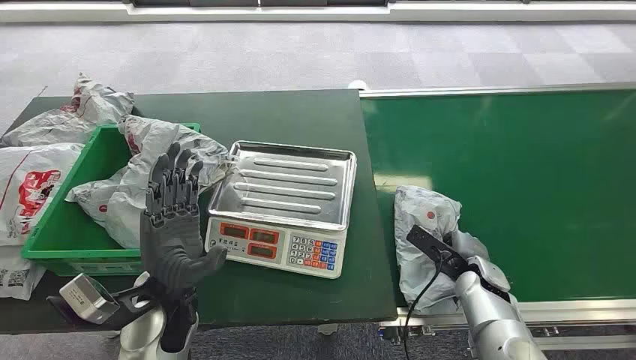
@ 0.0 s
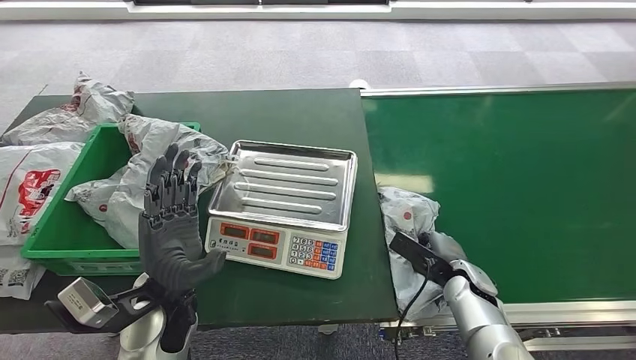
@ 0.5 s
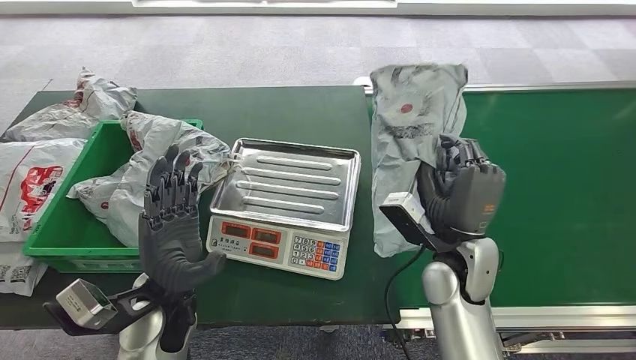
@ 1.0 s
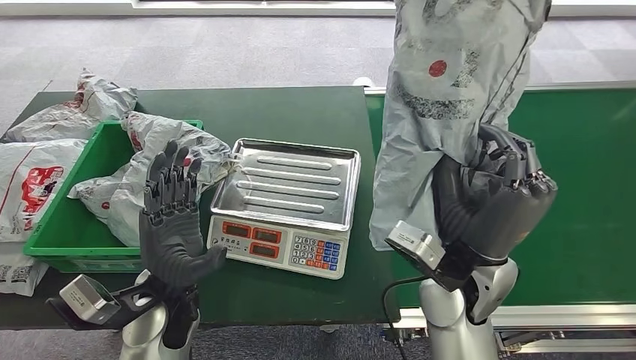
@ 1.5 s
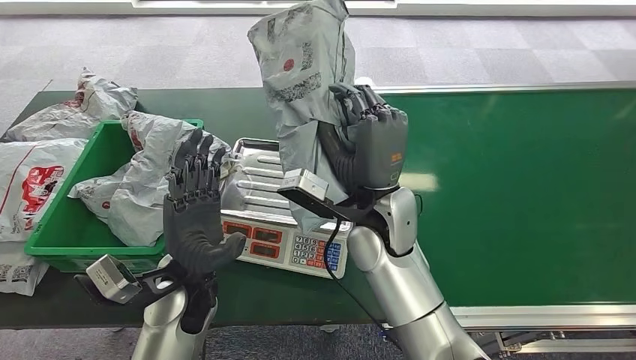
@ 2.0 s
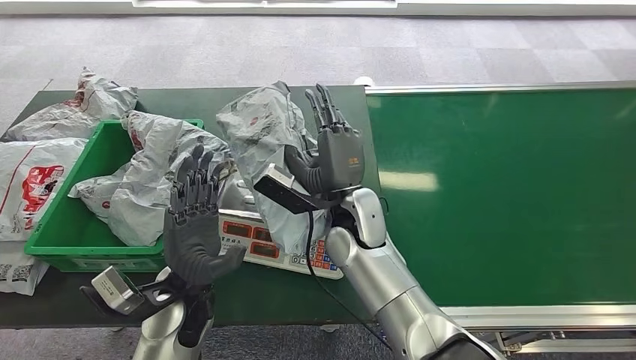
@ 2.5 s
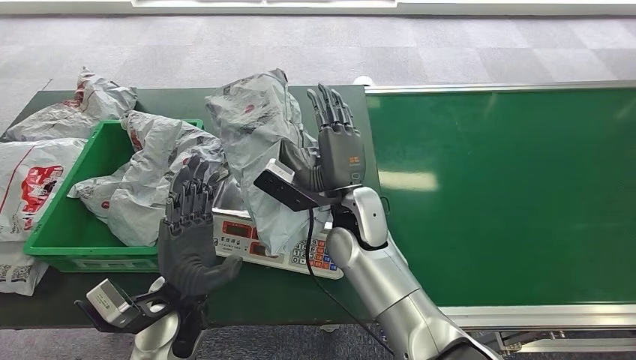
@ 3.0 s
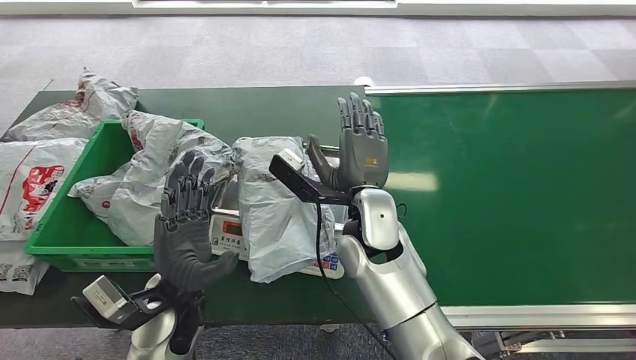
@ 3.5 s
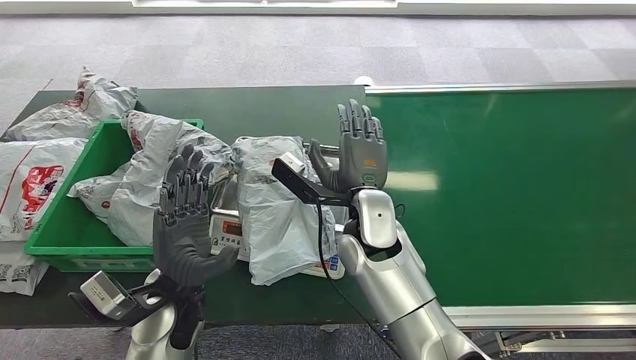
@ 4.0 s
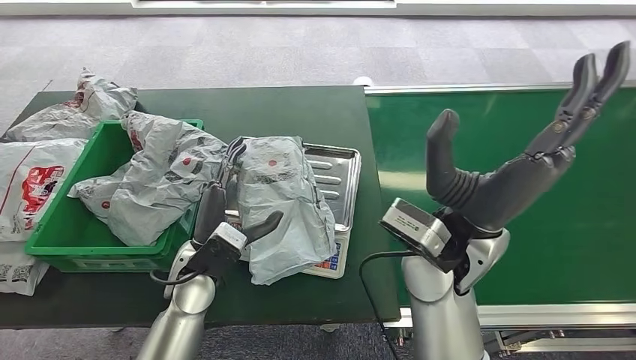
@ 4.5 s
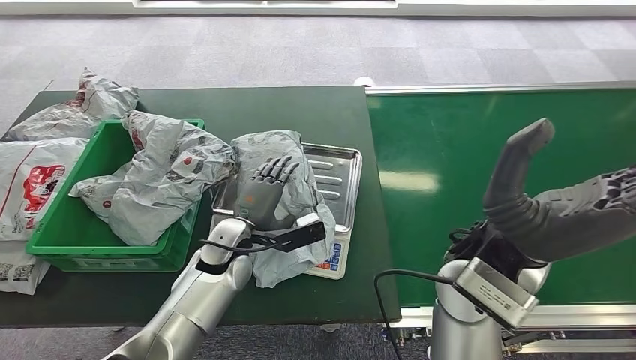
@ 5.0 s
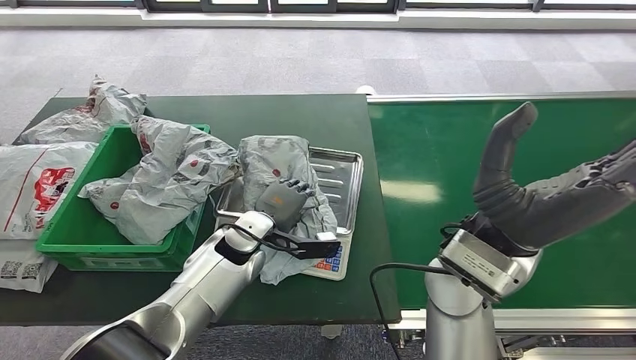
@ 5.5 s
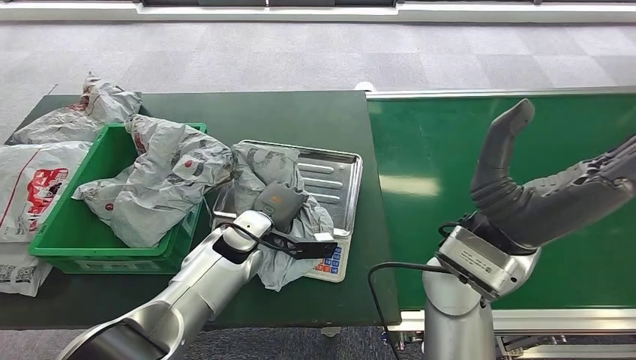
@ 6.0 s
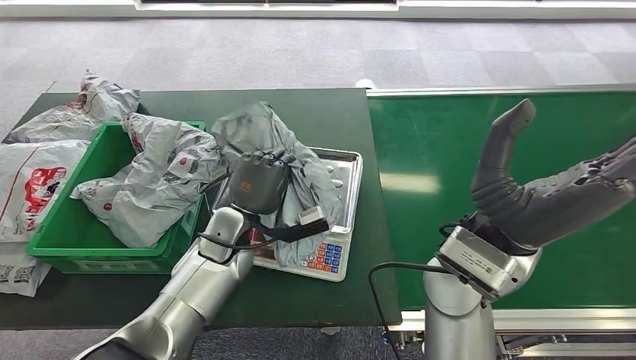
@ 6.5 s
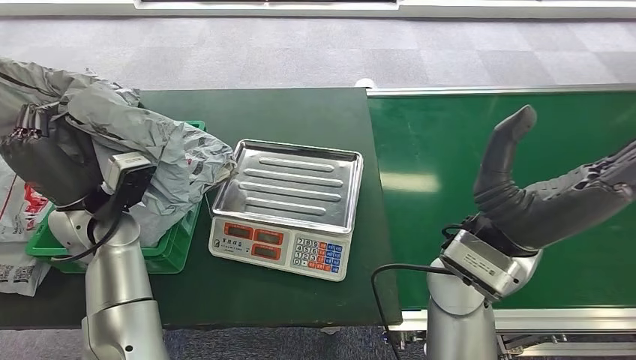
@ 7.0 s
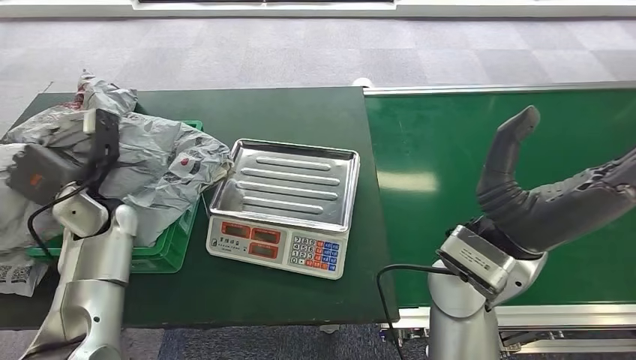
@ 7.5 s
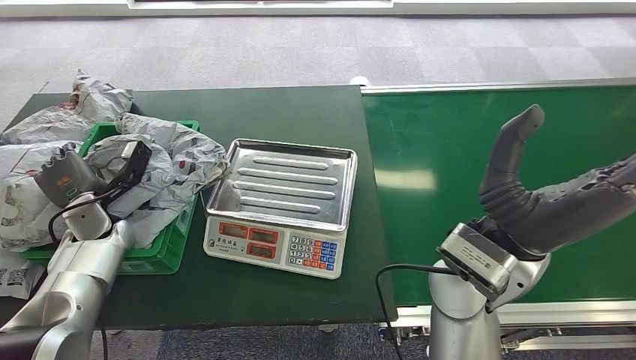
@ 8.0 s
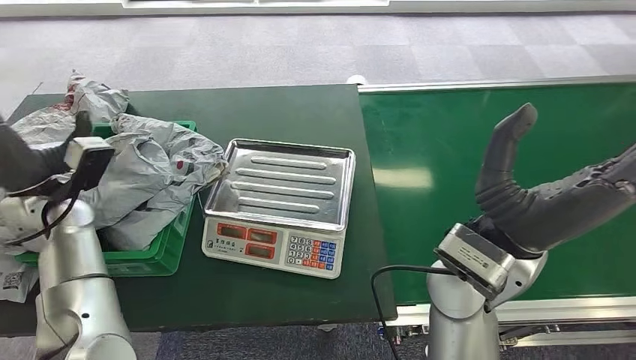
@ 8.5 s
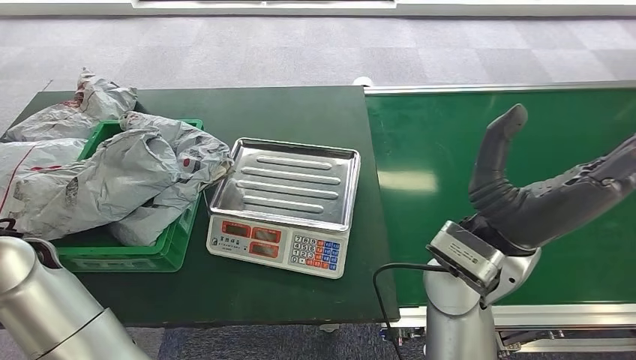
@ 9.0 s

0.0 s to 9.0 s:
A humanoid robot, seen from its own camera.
Step, 0.0 to 2.0 s: Pick up the package from the conveyor belt.
Step, 2.5 to 3.5 s: Place the package onto the inbound machine.
Step, 4.0 to 7.0 s: Pick up the package from the inbound machine.
Step, 7.5 to 9.0 s: Place the package into the parcel locker.

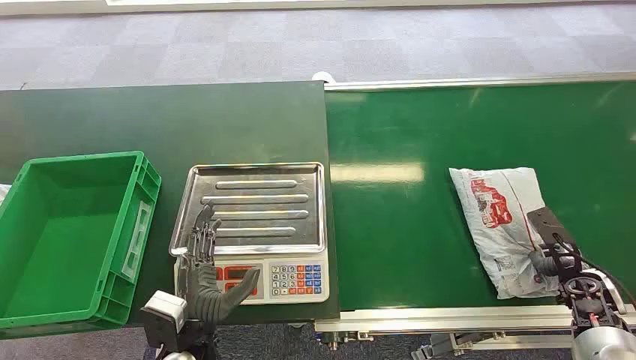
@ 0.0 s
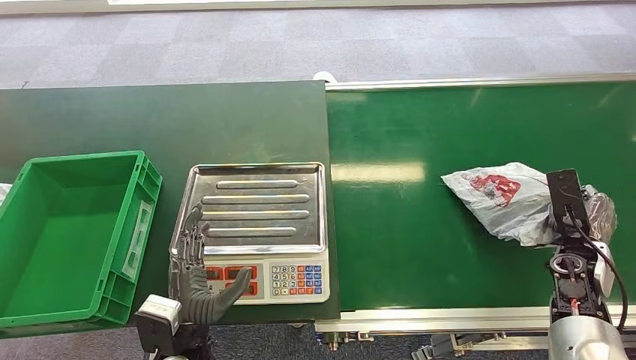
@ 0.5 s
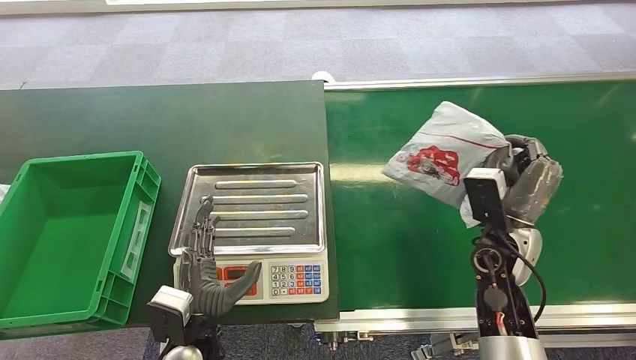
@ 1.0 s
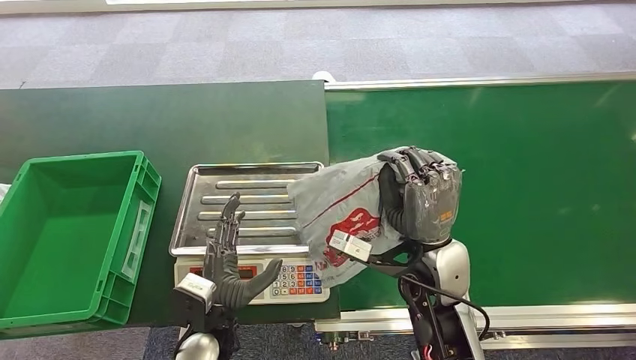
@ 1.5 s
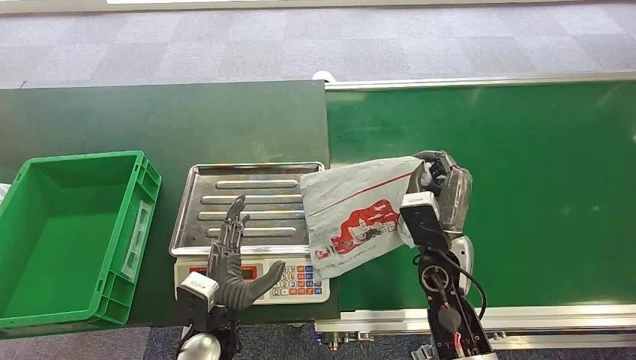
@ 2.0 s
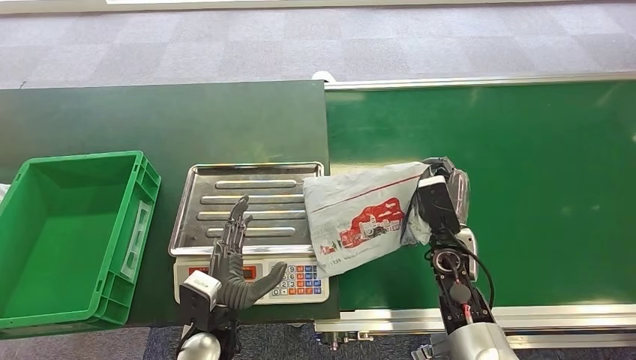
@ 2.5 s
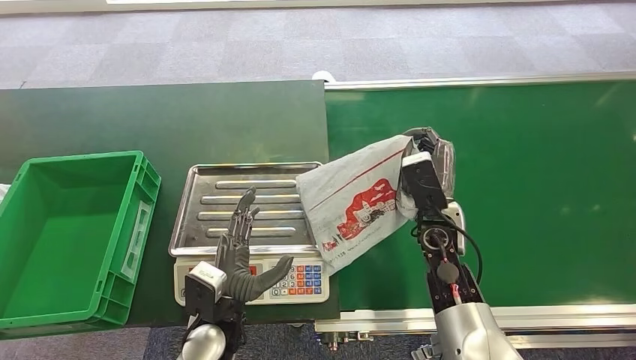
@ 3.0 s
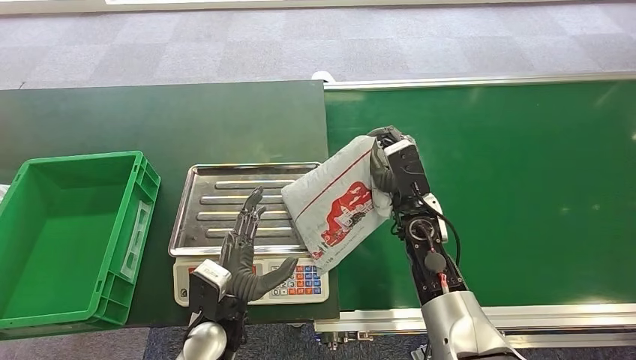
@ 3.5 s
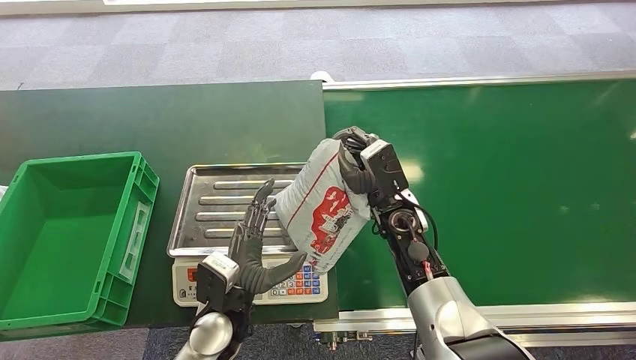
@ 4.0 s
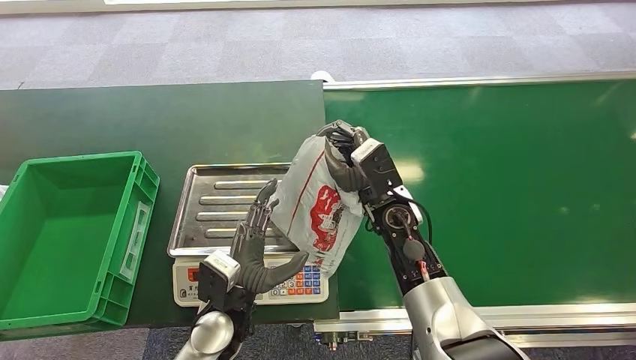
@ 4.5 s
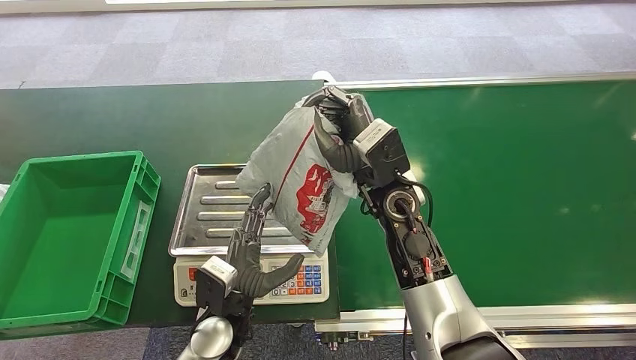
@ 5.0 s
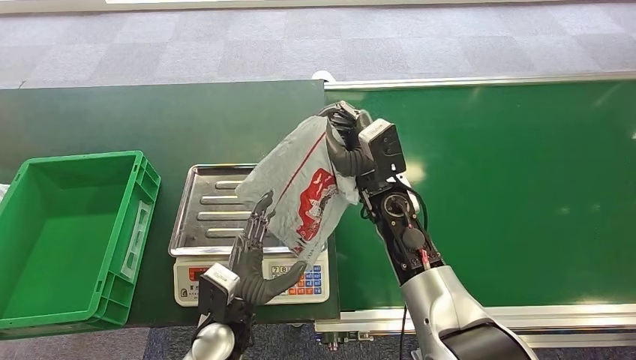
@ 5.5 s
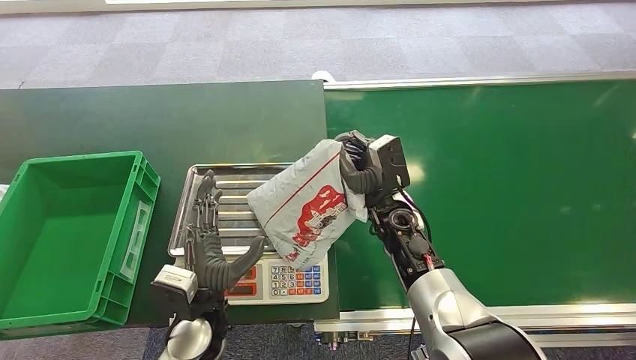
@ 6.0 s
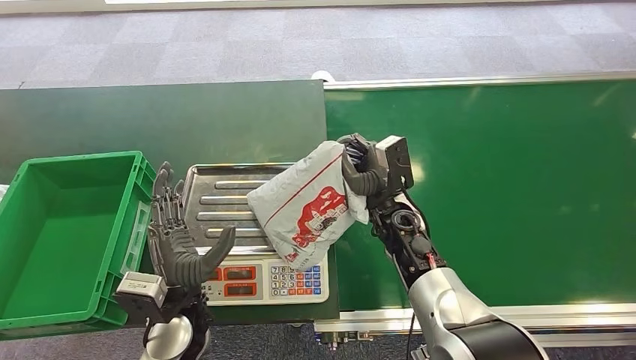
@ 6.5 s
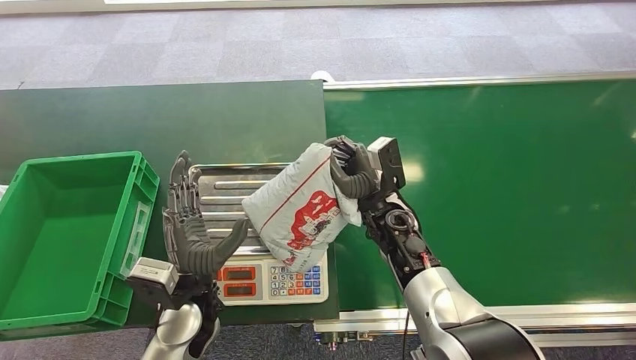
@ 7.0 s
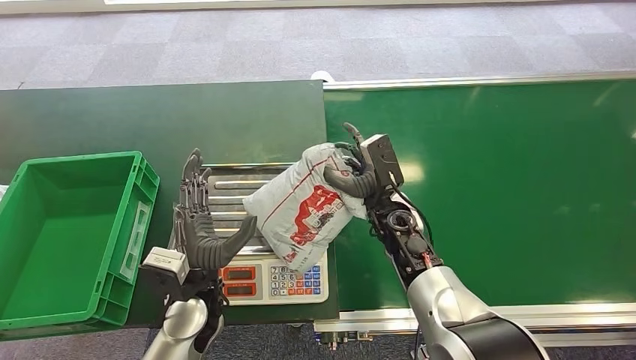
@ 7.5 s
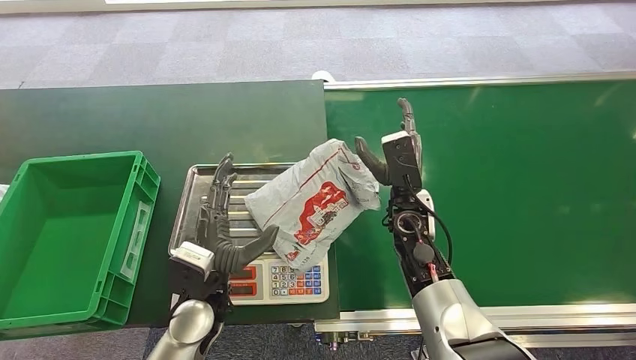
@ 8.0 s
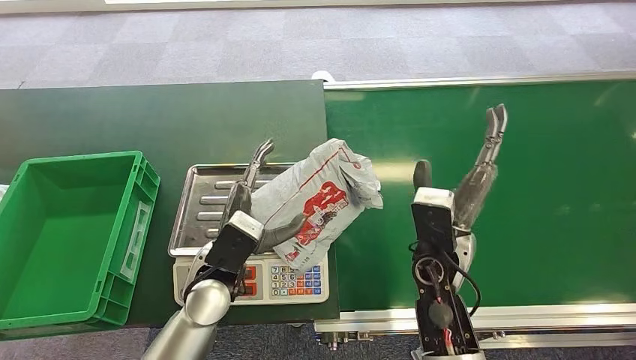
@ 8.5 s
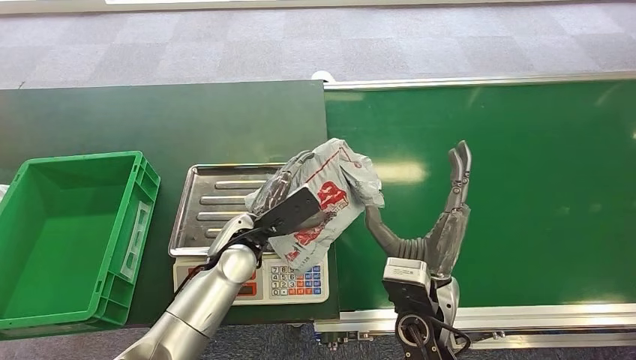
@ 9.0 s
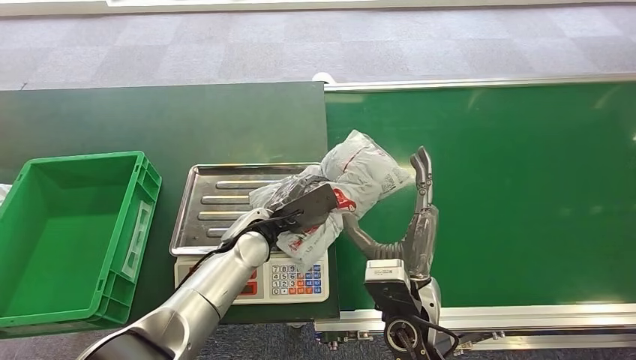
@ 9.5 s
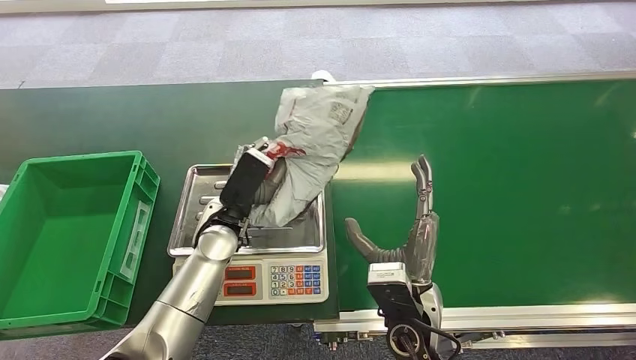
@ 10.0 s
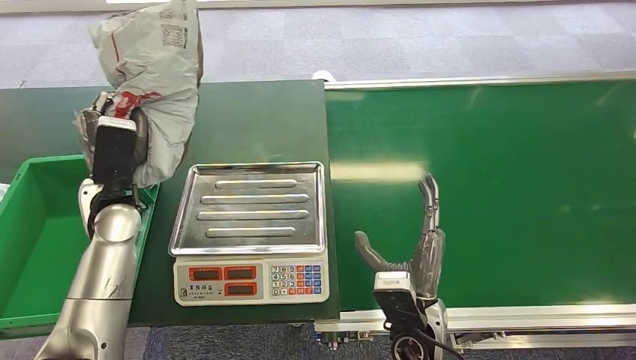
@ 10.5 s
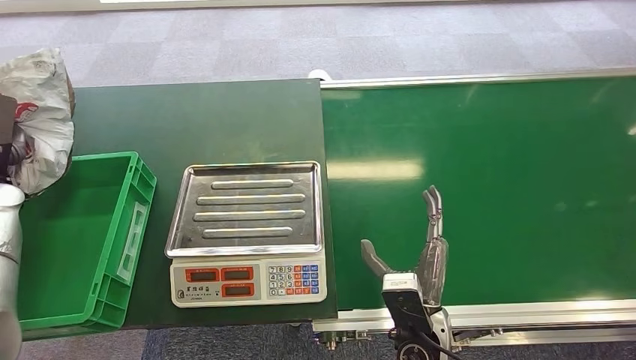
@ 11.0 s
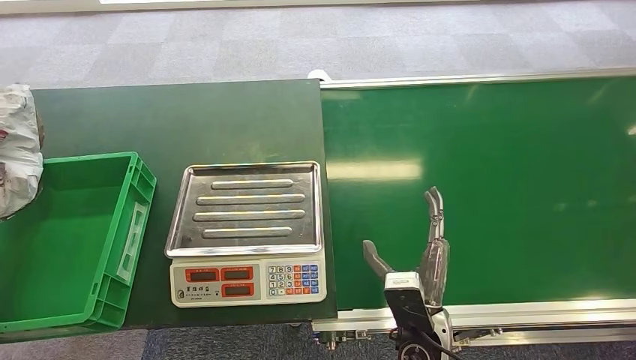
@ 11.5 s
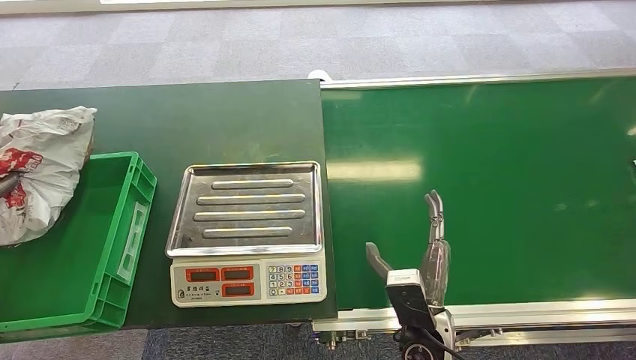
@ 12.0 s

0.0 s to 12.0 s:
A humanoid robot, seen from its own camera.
Step, 0.0 to 1.0 s: Pick up the package from the conveyor belt.
Step, 2.5 to 7.5 s: Place the package onto the inbound machine.
Step, 11.5 to 12.0 s: Place the package into the parcel locker.
2.0 to 4.0 s: The right hand goes about 10 cm forward and to the left.
4.0 to 6.0 s: The right hand travels upward and back again, roughly 10 cm each way.
8.0 to 10.0 s: The right hand moves backward, some 15 cm. Meanwhile the left hand goes some 10 cm forward.
